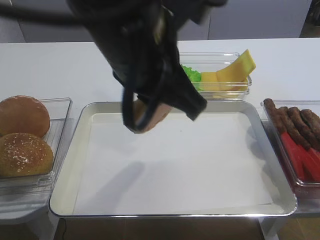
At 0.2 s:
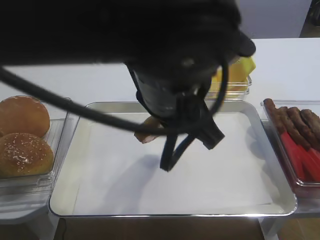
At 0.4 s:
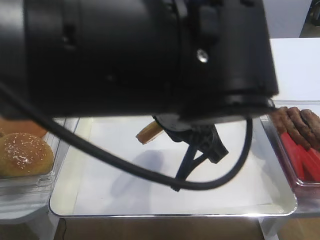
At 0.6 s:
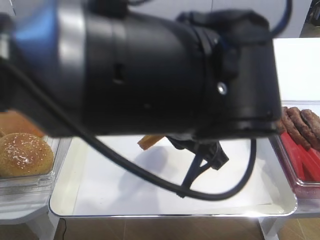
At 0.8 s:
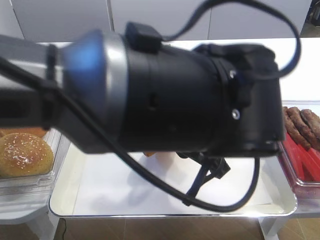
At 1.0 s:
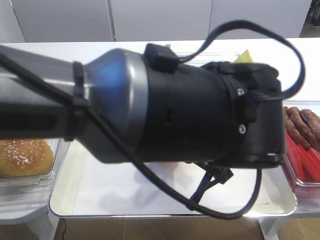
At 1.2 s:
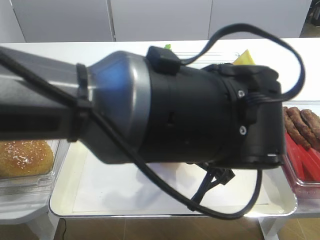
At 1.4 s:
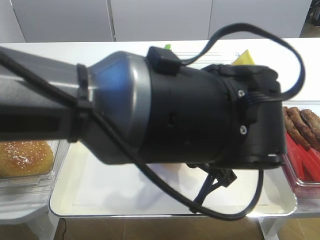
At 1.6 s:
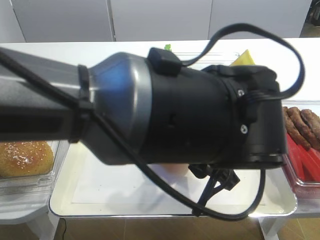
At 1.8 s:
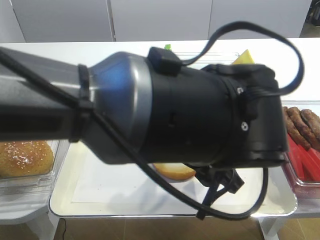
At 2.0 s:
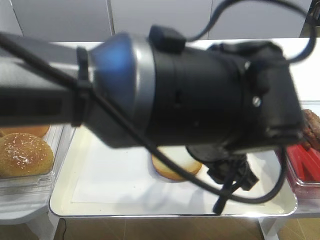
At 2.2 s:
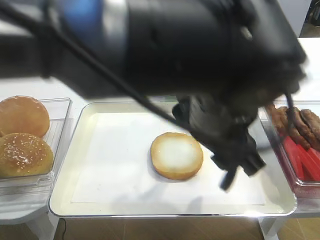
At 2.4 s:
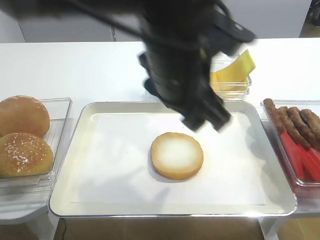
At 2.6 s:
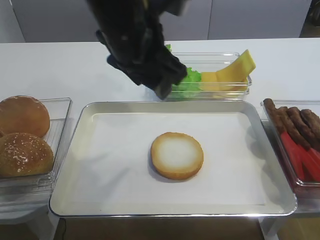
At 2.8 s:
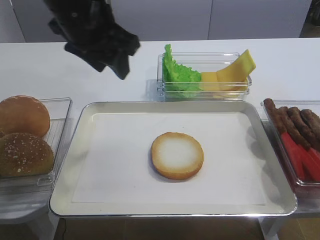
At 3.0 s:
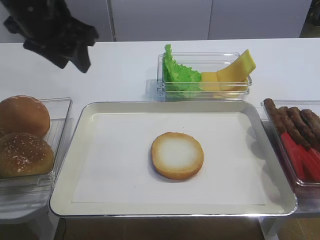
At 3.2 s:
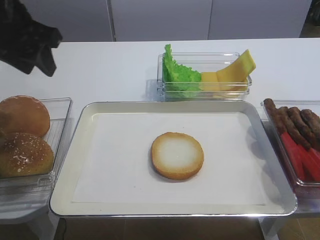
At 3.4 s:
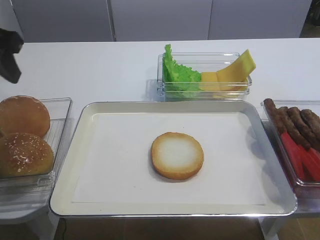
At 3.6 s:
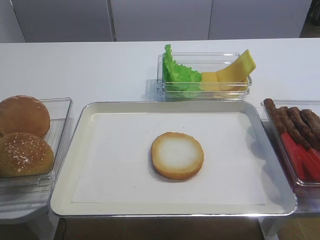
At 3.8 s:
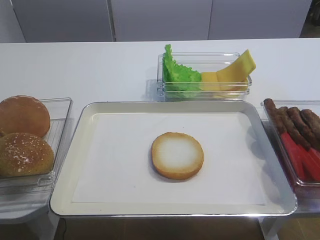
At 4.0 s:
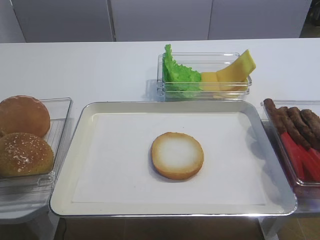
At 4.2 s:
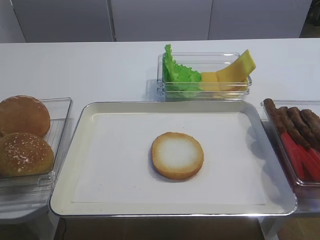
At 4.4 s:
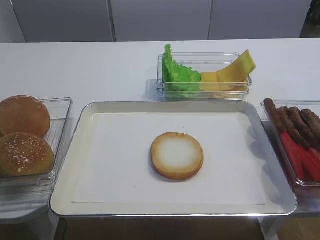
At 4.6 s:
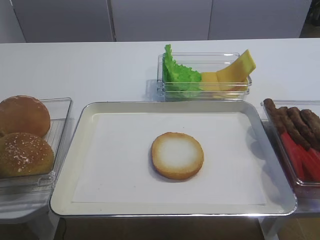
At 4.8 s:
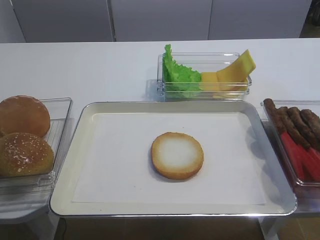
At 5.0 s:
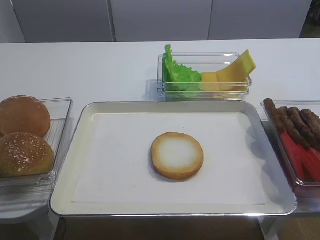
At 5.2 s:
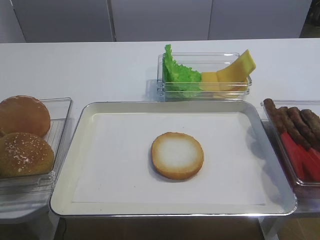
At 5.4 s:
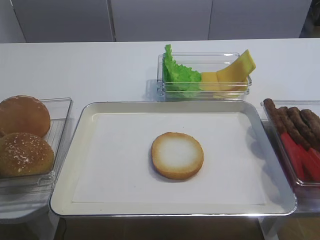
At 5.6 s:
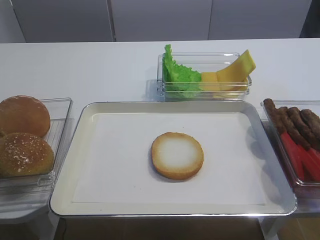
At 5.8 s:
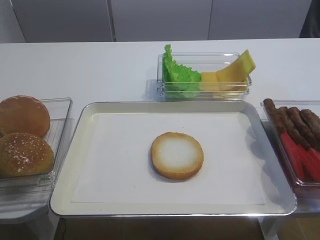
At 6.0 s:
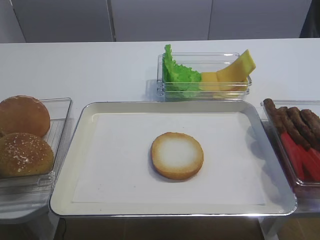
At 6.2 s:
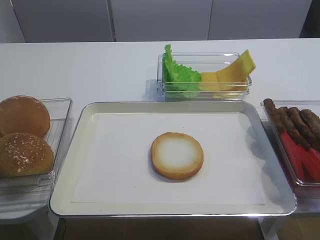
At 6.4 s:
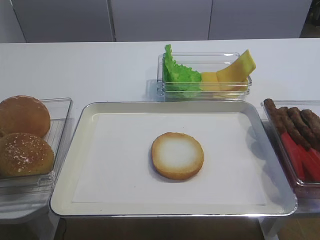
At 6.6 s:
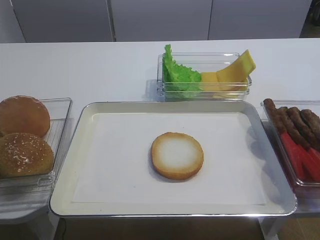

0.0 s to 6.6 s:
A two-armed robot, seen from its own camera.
Step, 0.0 to 1.8 s: Place the bread slice on the tray with the left gripper.
0.0 to 1.6 s: The left gripper shifts about 15 cm downward and to the right, and opens up.
1.6 to 3.2 s: The left gripper is displaced to the left by some 25 cm, and opens, then closes once more.
3.2 to 5.0 s: The left gripper moves backward, roughly 35 cm.

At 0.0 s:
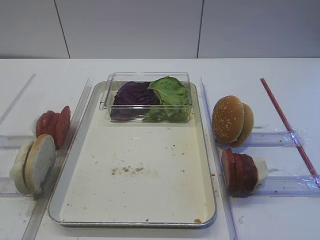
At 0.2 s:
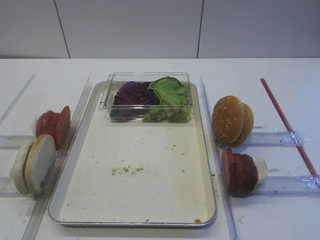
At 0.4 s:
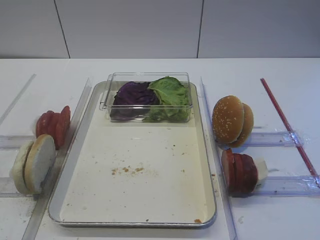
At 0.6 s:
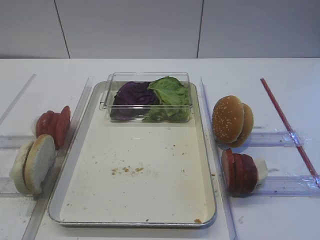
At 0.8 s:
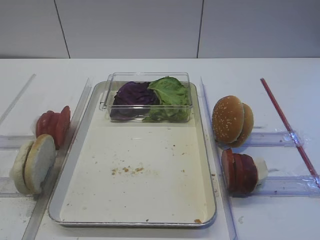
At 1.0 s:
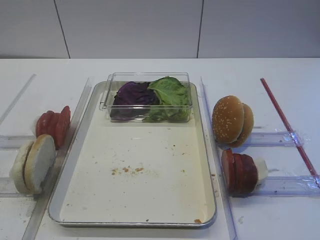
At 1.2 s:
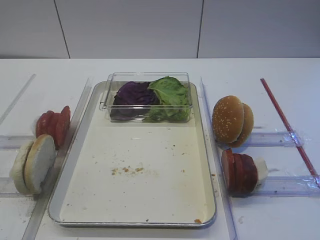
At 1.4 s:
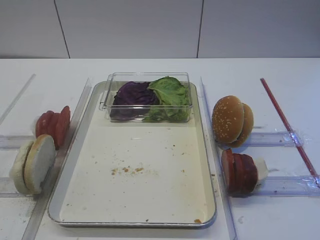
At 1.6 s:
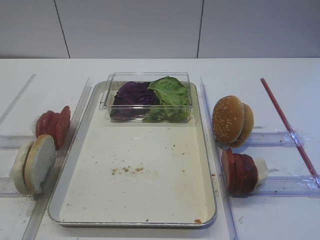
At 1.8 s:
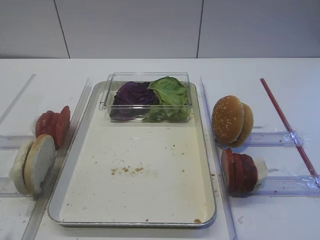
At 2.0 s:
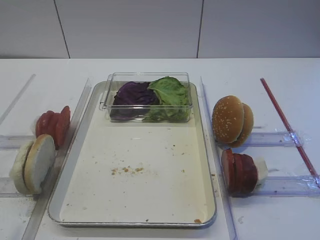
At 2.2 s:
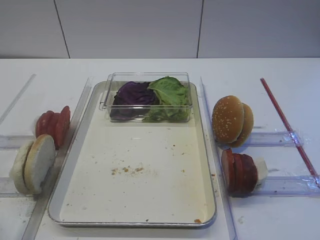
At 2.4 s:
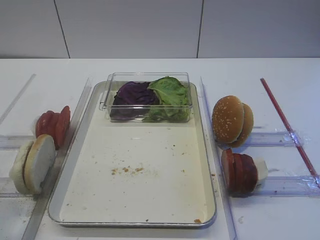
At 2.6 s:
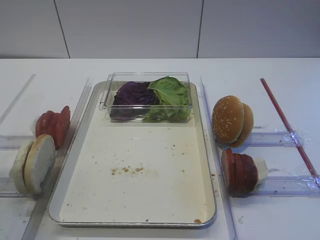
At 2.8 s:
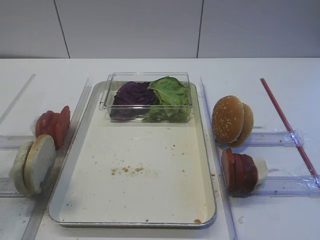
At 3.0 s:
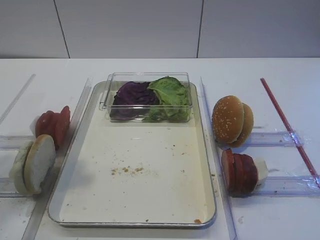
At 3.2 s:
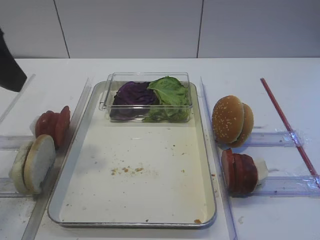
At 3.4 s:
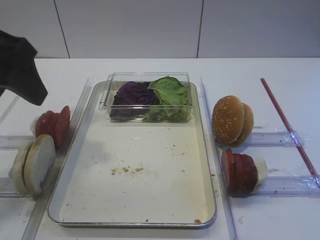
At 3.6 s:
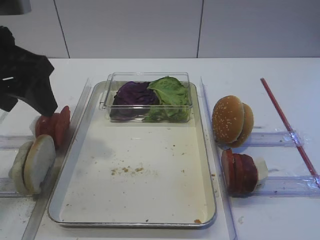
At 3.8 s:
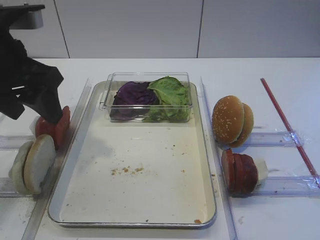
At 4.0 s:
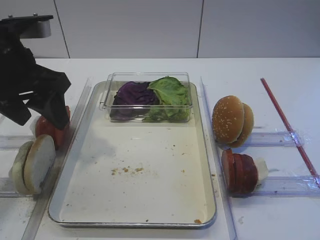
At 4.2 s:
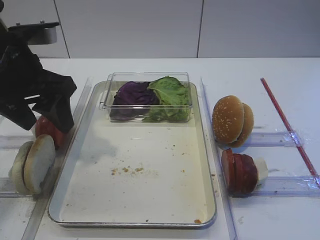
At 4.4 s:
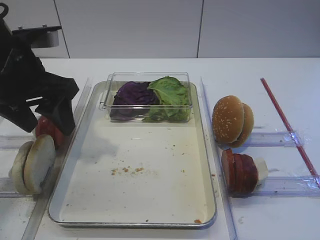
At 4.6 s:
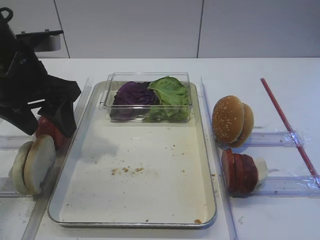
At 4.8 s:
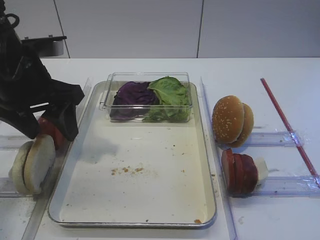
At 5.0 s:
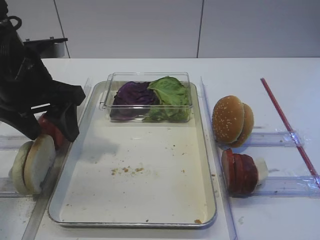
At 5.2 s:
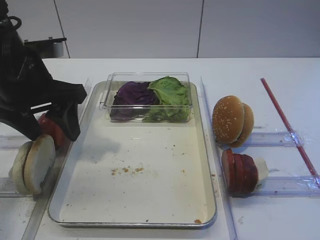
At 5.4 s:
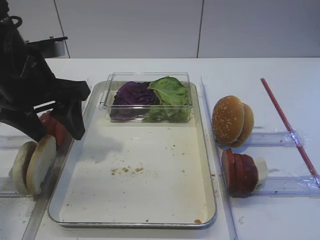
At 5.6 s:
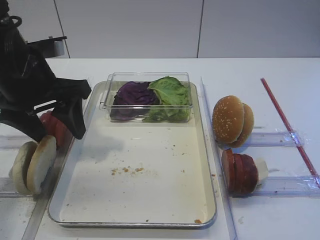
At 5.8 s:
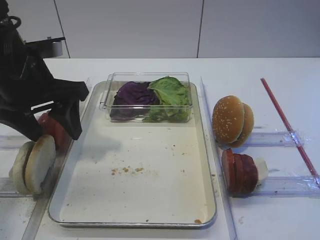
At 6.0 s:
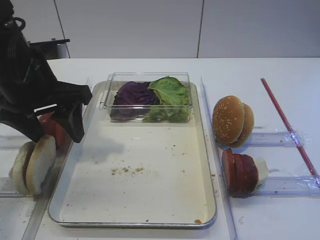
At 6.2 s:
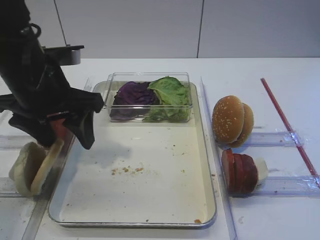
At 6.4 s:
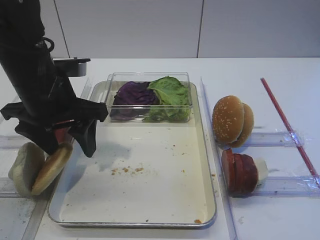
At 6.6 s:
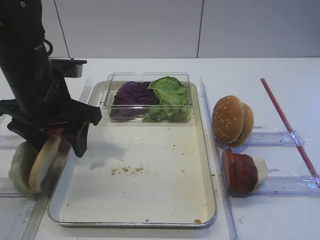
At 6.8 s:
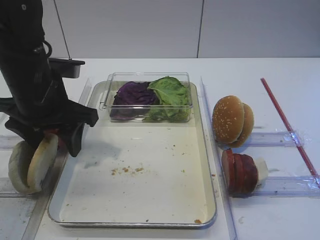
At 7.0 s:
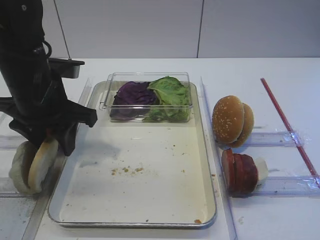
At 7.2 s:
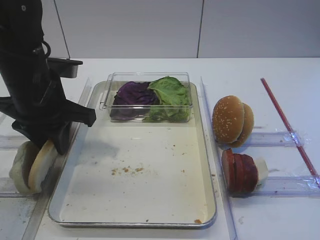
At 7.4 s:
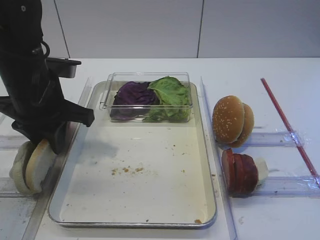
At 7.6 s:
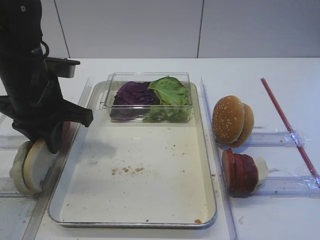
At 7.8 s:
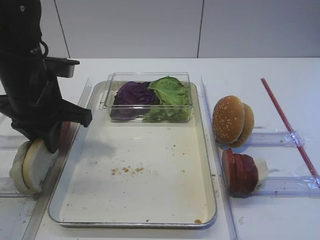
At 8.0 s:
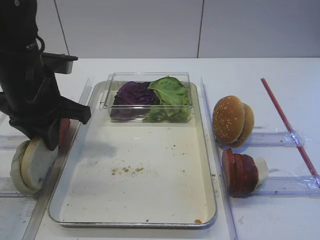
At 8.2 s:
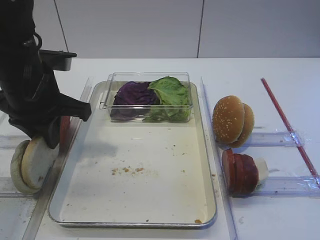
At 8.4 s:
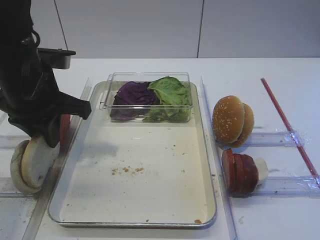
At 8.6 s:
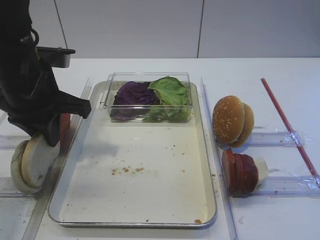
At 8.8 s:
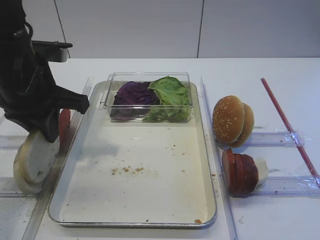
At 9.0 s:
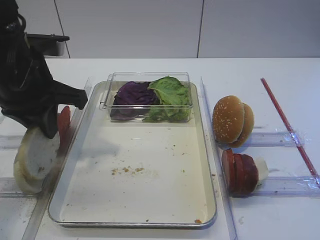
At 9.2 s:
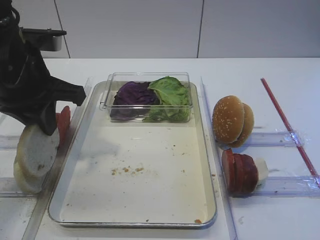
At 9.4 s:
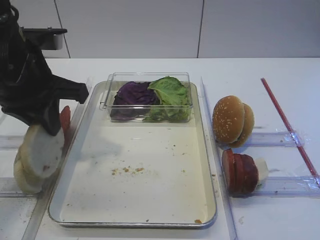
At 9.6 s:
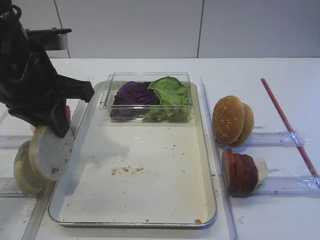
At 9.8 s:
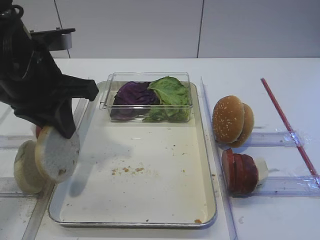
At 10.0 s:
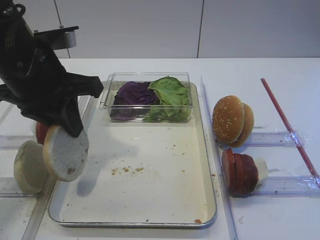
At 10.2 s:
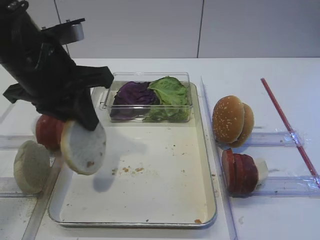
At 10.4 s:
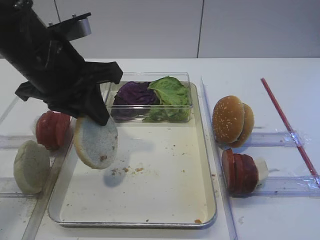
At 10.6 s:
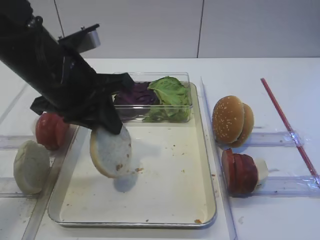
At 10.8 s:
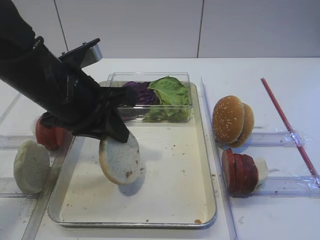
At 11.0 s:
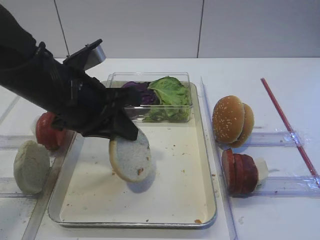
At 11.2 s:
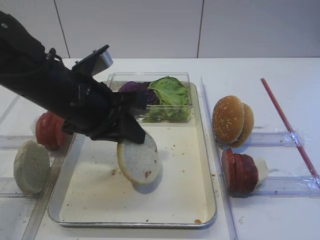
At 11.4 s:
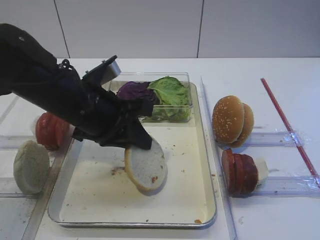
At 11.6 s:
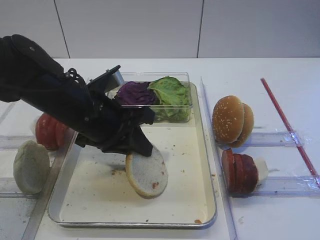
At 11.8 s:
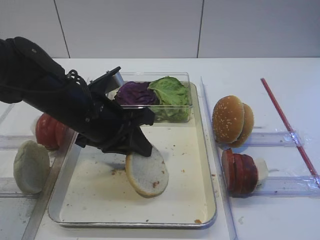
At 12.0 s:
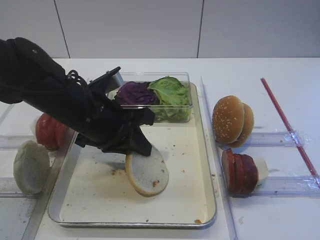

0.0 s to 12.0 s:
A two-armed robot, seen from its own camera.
Step, 0.0 to 9.2 s: Pick up the bread slice with the left gripper.
1.6 to 3.0 s: The left gripper is displaced forward and upward by approximately 20 cm.
3.0 to 4.4 s: The left gripper moves forward and downward, approximately 15 cm.
4.4 to 6.0 s: The grippers move only a little.
6.0 to 7.6 s: The left gripper closes.
7.6 to 9.0 s: The grippers make only small movements.
10.4 to 12.0 s: The left gripper heads downward, covering about 10 cm.

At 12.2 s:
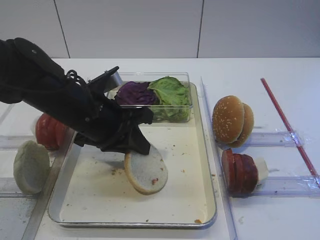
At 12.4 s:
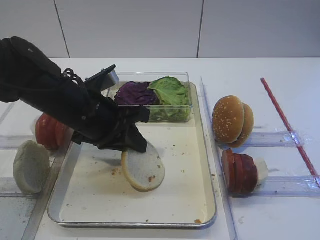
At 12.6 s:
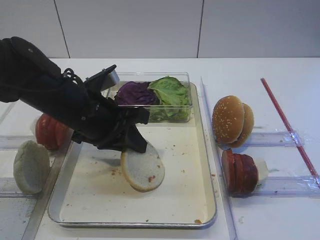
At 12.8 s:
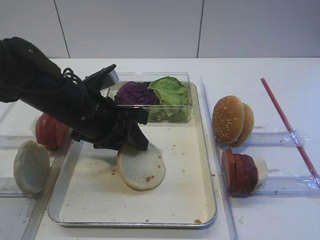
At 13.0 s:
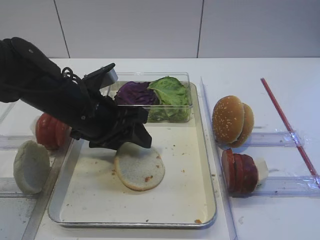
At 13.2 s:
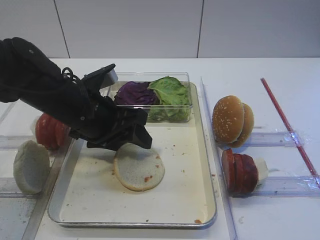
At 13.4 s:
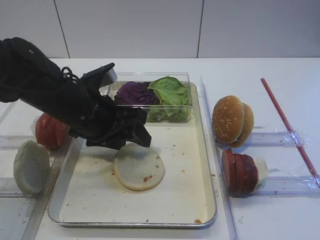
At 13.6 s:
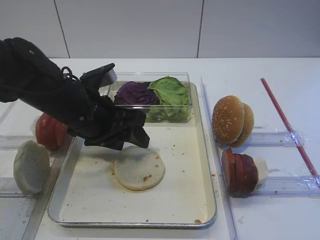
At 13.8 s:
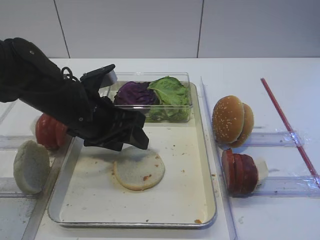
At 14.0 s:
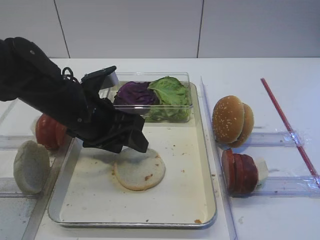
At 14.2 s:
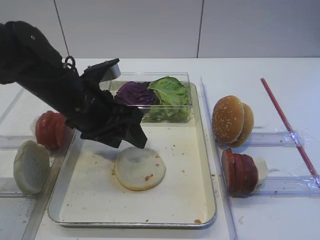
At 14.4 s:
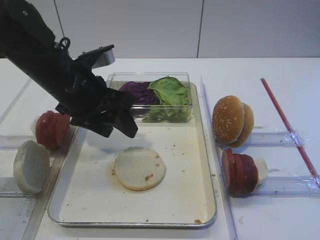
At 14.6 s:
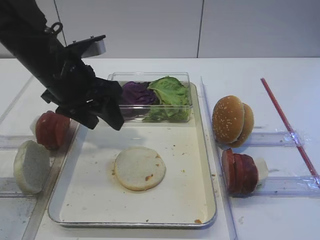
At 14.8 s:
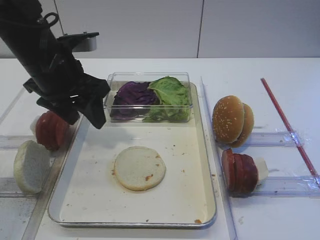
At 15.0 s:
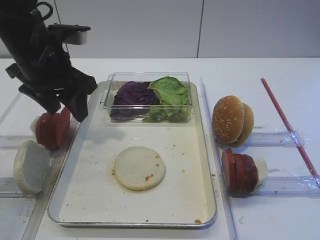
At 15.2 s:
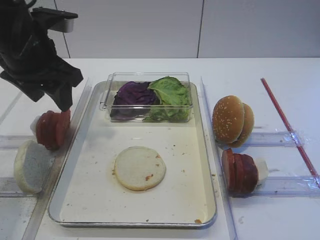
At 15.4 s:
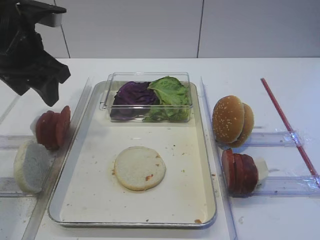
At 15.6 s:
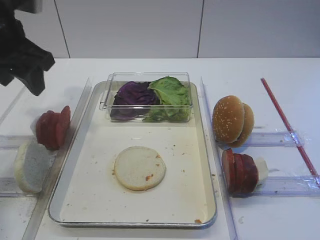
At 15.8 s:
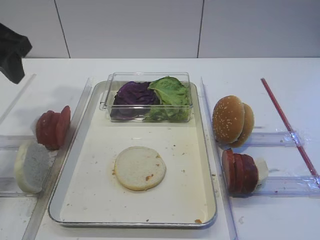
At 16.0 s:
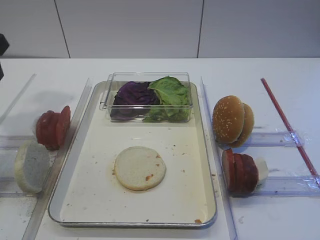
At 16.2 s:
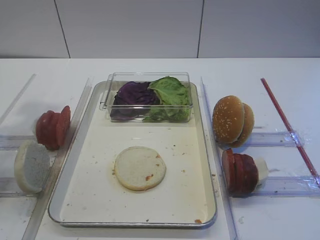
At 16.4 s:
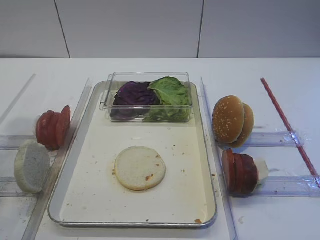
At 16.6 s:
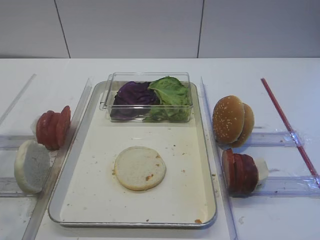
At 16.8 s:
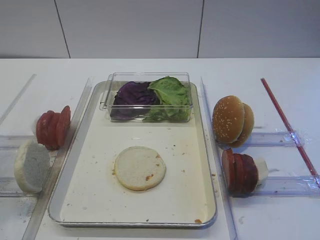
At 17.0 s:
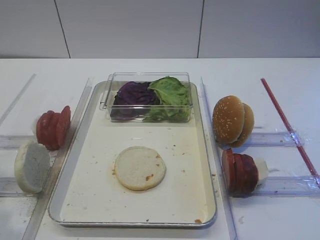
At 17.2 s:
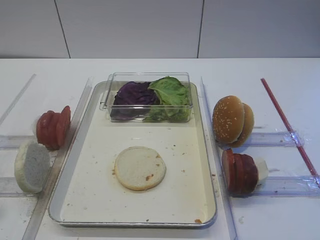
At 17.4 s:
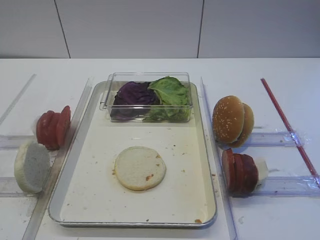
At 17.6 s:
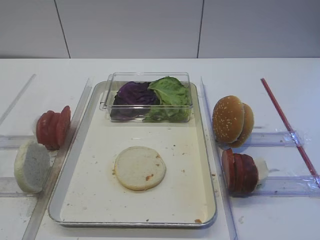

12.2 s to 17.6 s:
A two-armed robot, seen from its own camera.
Step, 12.2 to 14.4 s: Place the bread slice on the tray with the left gripper.
12.2 to 13.6 s: The left gripper opens.
13.6 to 15.0 s: The left gripper travels upward and to the left by some 10 cm.
15.0 to 16.2 s: The left gripper shifts roughly 15 cm to the left, backward and upward.
16.2 to 17.6 s: The left gripper moves backward, approximately 25 cm.
